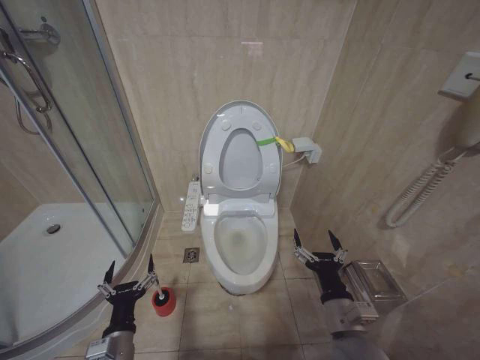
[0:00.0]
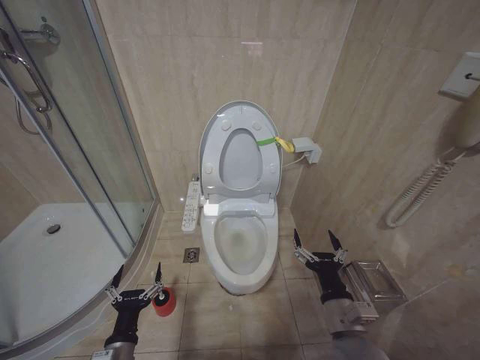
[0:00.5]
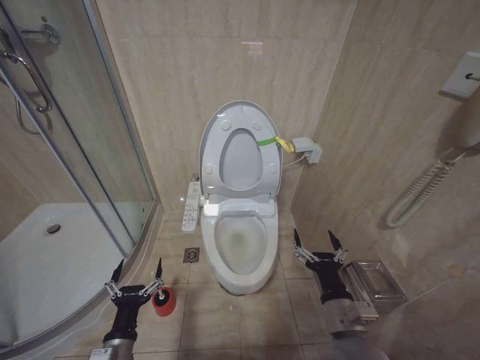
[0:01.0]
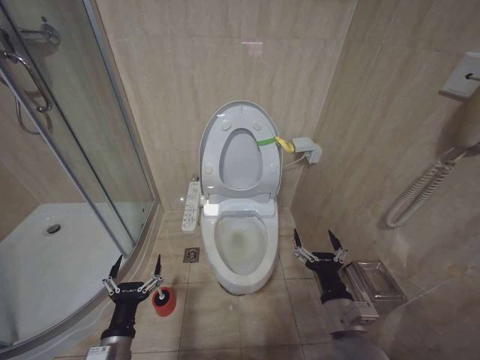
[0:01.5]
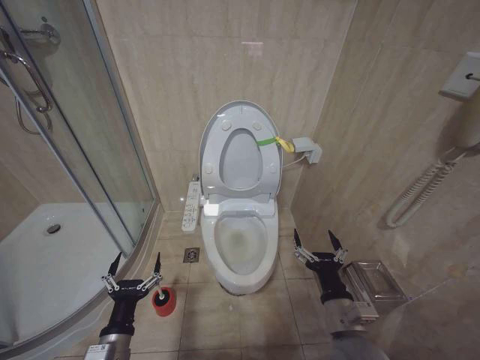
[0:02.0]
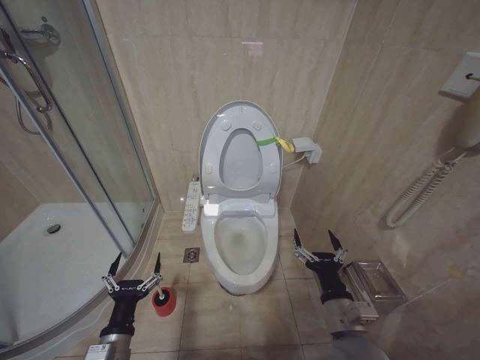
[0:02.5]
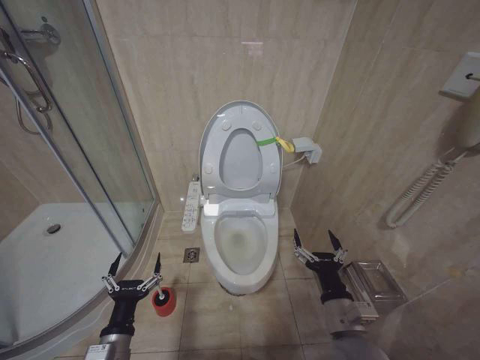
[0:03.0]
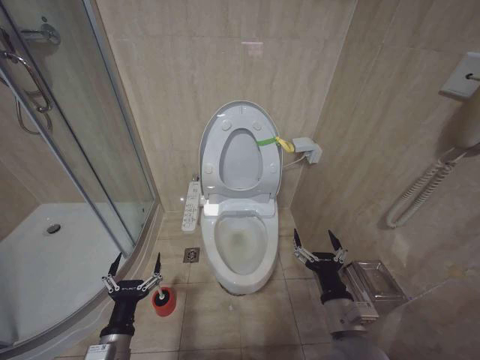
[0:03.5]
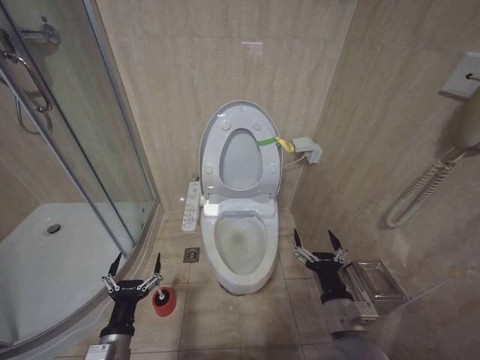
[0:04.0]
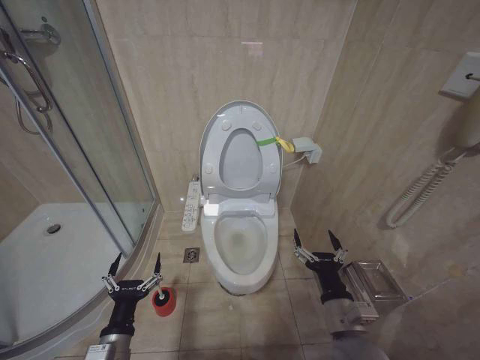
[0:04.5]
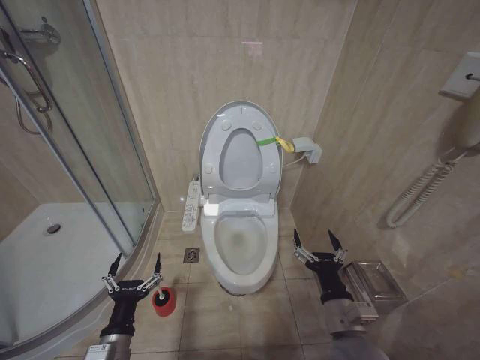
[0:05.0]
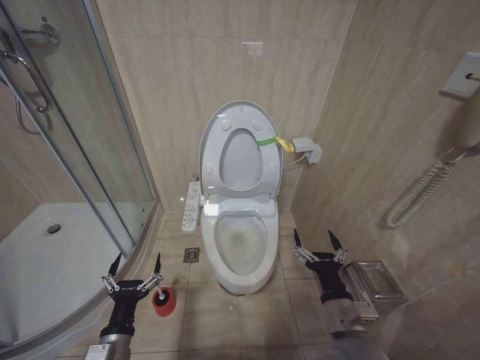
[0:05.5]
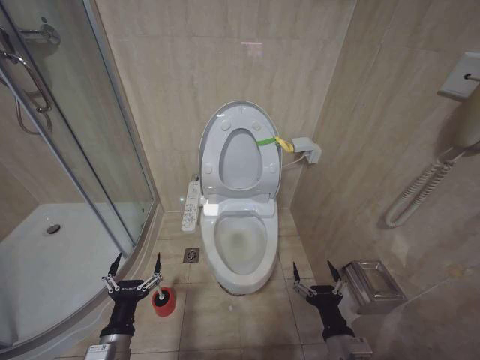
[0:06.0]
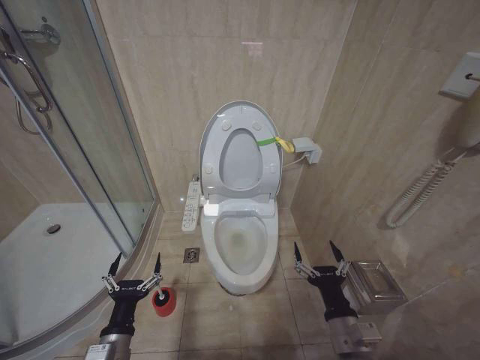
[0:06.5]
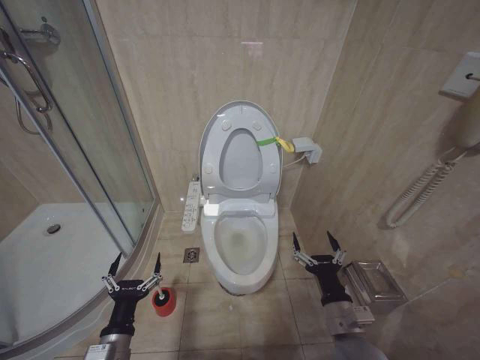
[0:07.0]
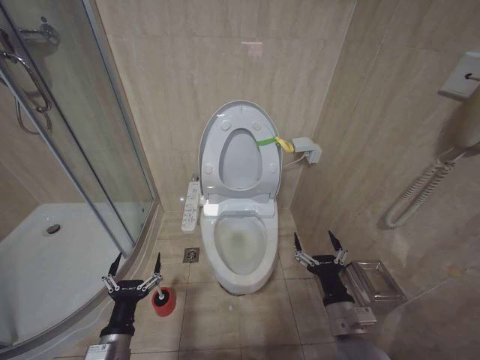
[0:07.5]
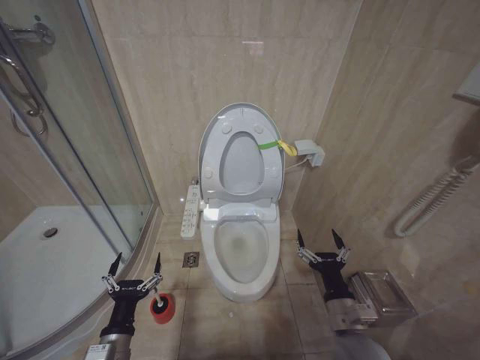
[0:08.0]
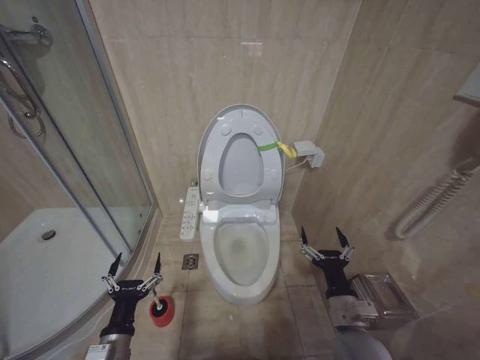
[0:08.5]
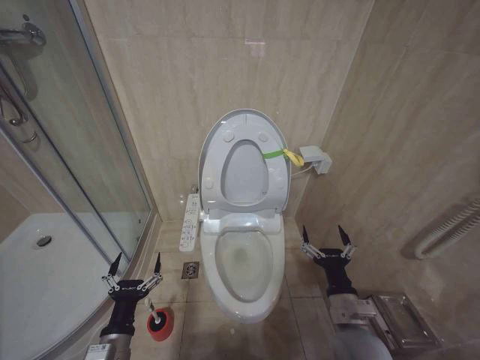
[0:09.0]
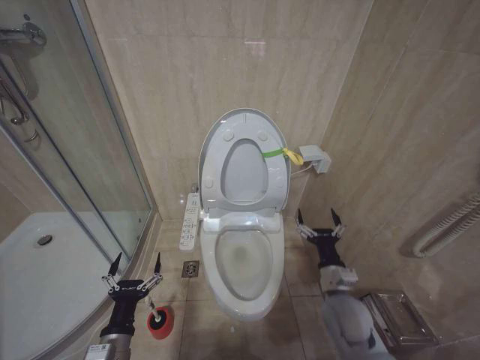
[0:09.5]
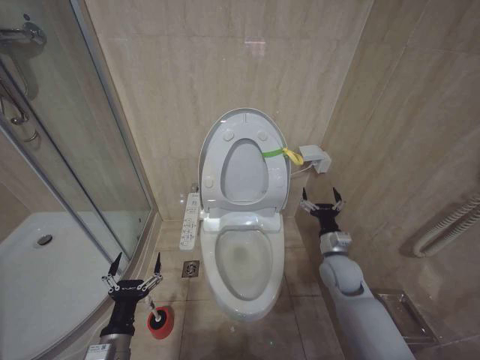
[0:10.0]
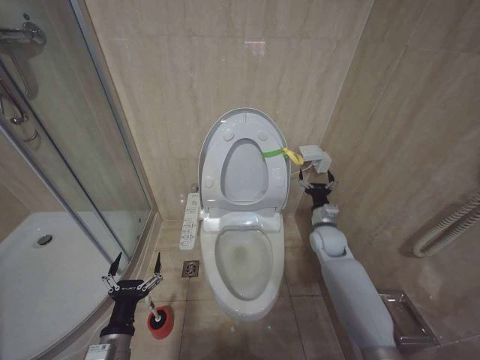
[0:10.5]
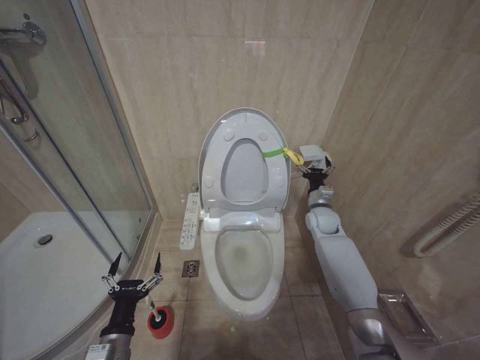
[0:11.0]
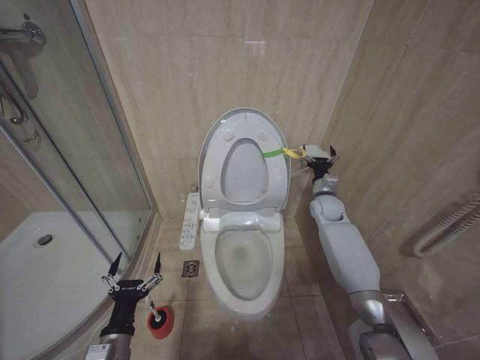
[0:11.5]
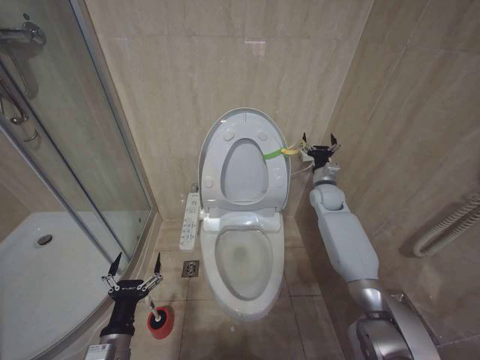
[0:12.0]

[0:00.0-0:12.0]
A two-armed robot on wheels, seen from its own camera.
Task of the whole recording: Open the toilet lid, clean the toilet bowl with a toilet brush, close the toilet lid, and flush.
0:00.0 to 0:02.0: The grippers make only small movements.
0:02.0 to 0:04.0: Both grippers stay about where they are.
0:04.0 to 0:06.0: The right gripper shifts approximately 5 cm downward.
0:06.0 to 0:08.0: The right gripper shifts approximately 5 cm forward.
0:08.0 to 0:10.0: The right gripper goes about 15 cm forward.
0:10.0 to 0:12.0: The right gripper goes some 25 cm forward and upward.

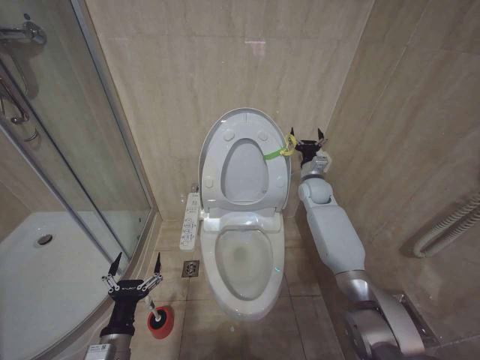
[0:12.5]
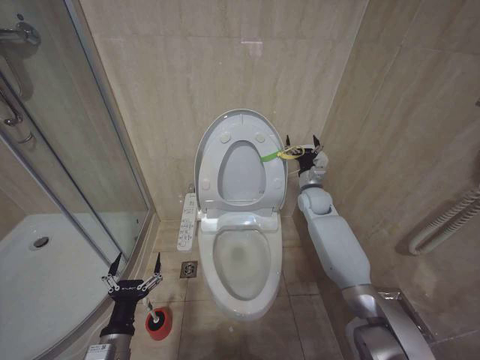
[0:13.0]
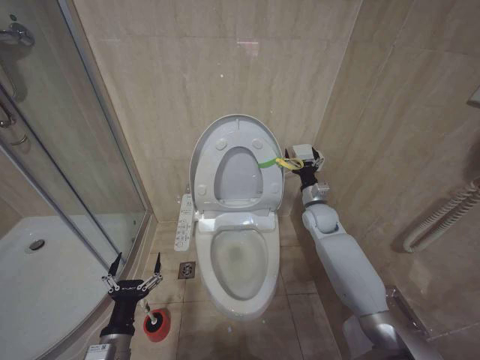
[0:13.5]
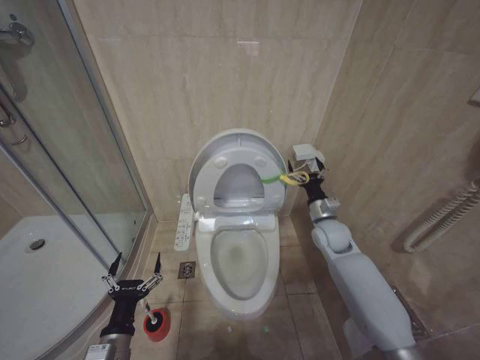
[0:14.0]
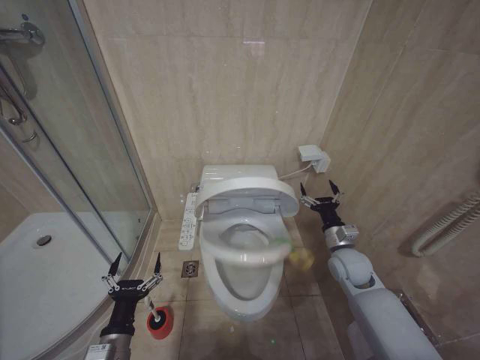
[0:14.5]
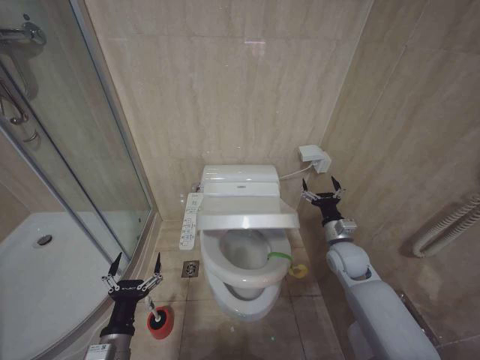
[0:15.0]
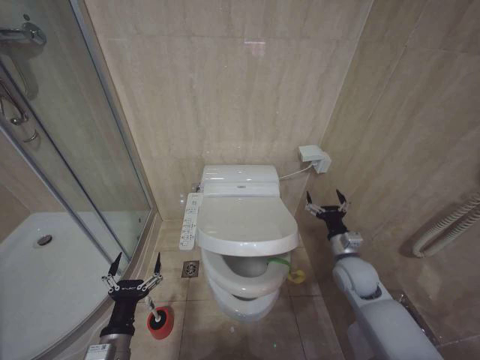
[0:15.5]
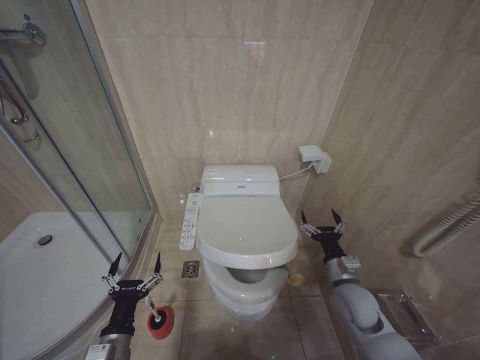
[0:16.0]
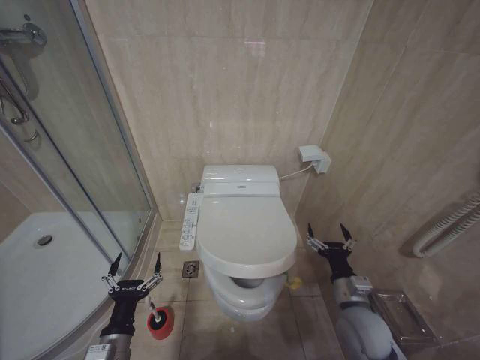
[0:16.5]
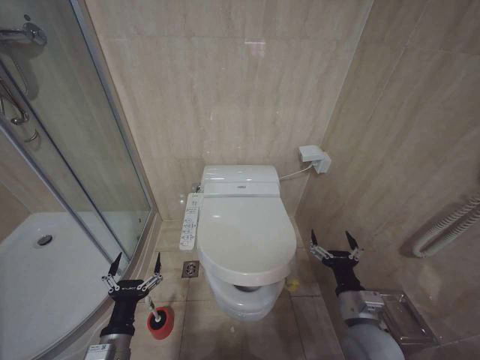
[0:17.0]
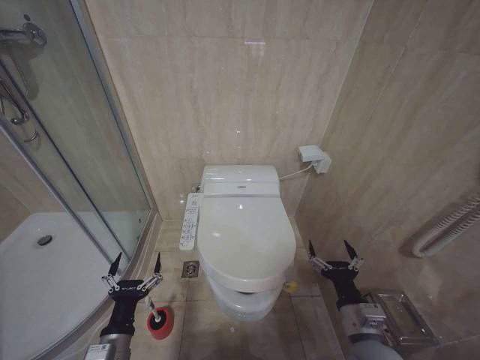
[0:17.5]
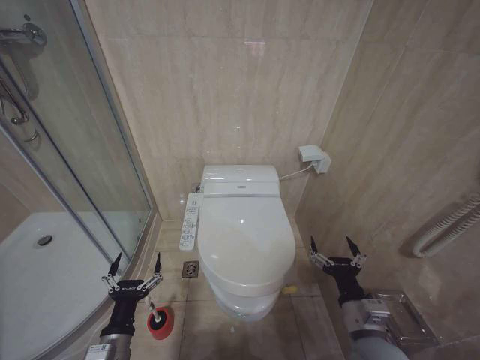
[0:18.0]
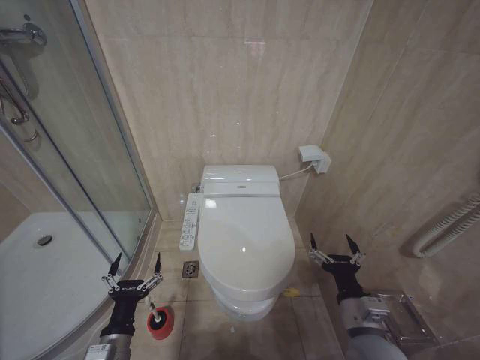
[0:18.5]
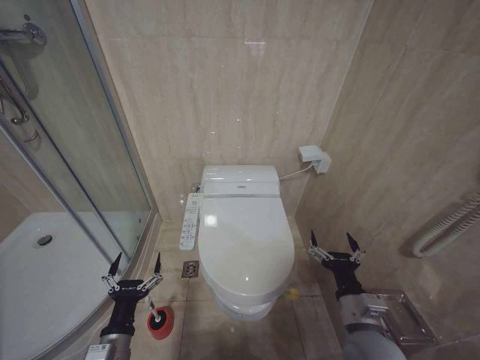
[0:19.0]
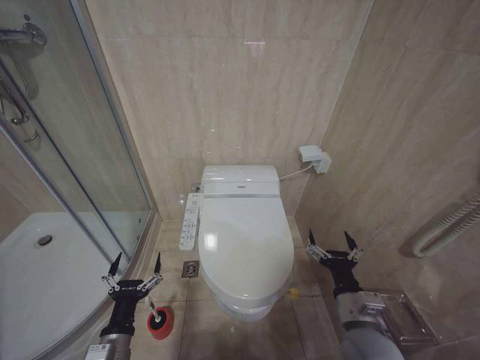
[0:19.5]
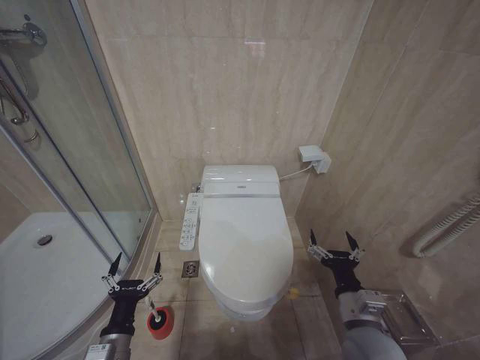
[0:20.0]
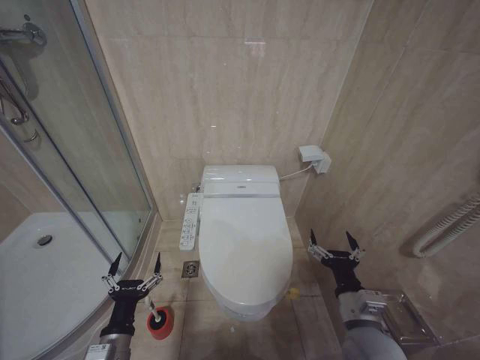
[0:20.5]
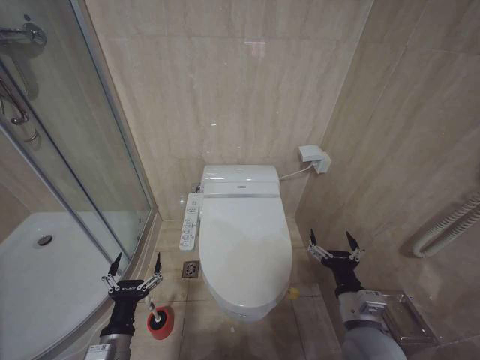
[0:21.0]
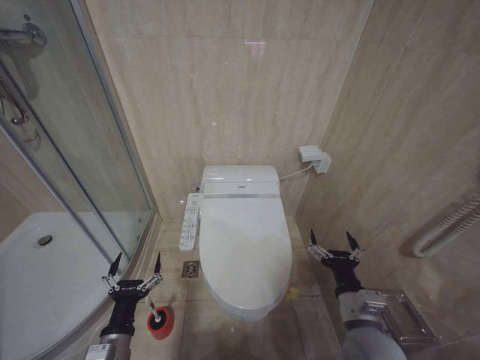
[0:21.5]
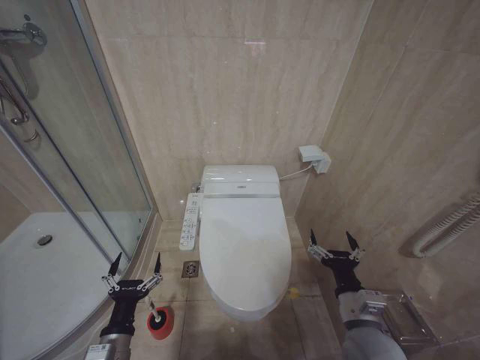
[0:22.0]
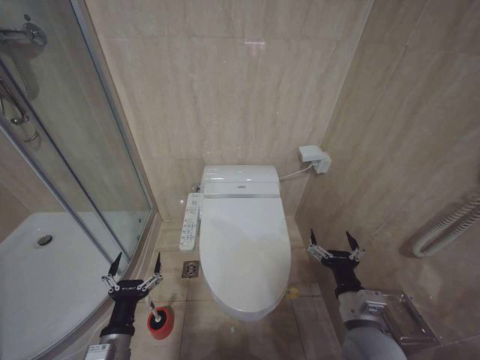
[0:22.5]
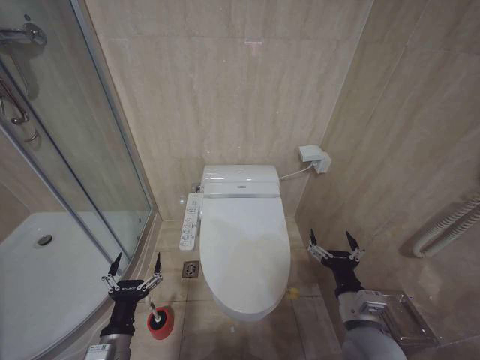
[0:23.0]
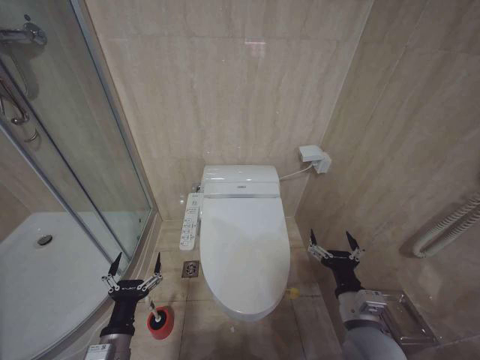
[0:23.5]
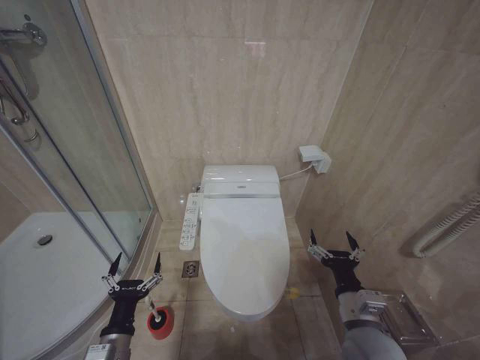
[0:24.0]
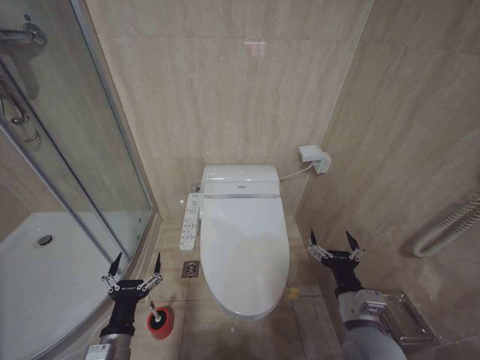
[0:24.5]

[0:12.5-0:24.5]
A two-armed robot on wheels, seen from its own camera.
Task of the whole recording: Open the toilet lid, clean the toilet bowl with a toilet brush, close the toilet lid, and flush.
0:12.5 to 0:14.5: The right gripper travels backward and downward by about 25 cm.
0:14.5 to 0:16.5: The right gripper goes some 10 cm backward.
0:16.5 to 0:18.5: The right gripper is displaced backward by some 5 cm.
0:18.5 to 0:24.5: Neither gripper changes place.

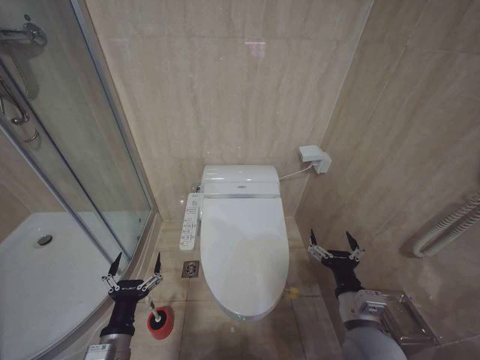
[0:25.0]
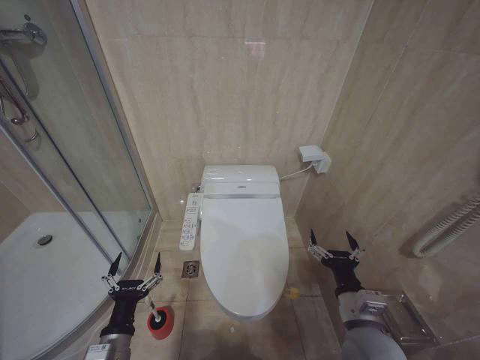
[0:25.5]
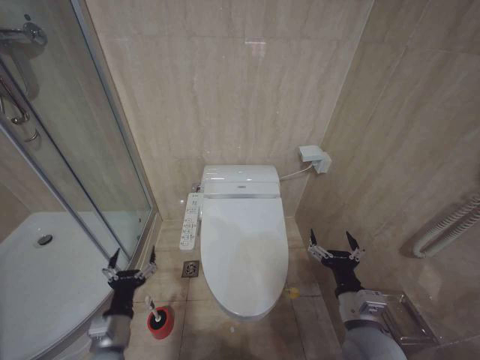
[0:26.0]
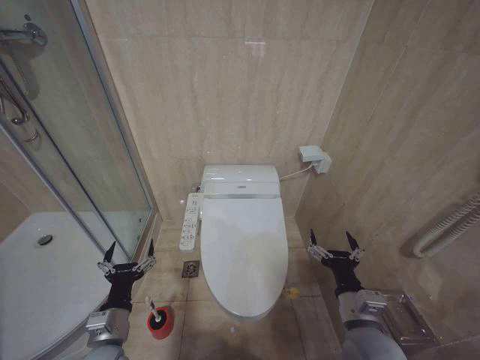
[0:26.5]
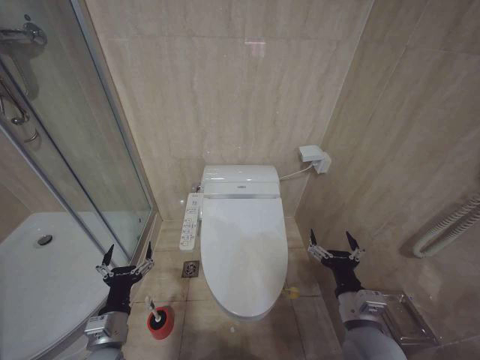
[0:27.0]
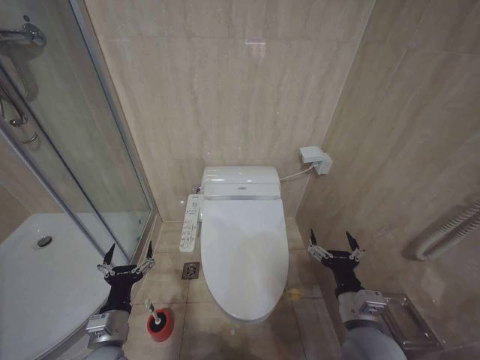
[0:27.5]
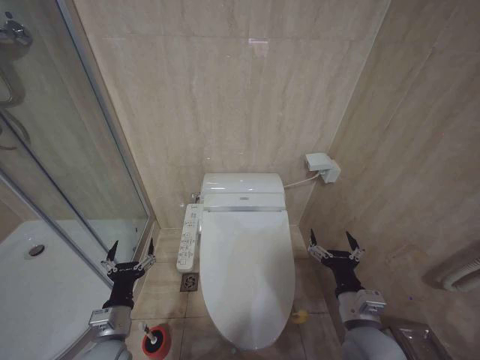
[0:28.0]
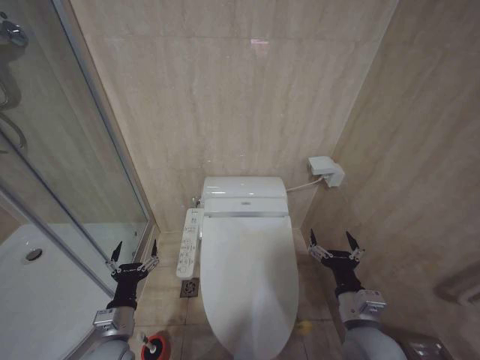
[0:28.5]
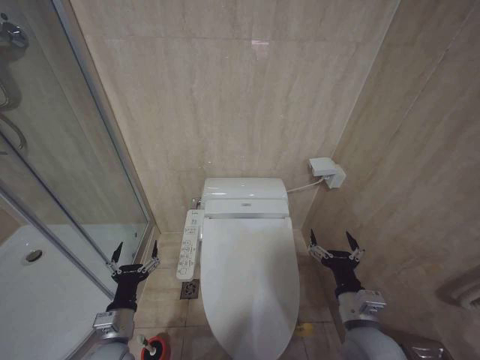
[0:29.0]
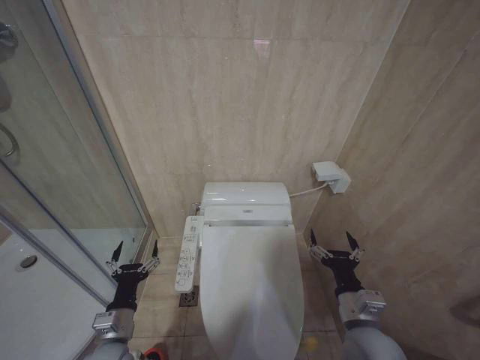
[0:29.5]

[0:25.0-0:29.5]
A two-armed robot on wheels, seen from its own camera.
Task of the whole recording: Open the toilet lid, clean the toilet bowl with a toilet brush, close the toilet lid, and flush.
0:25.0 to 0:29.5: There are only small adjustments of the grippers.
